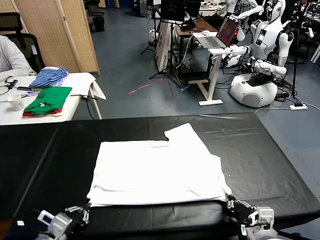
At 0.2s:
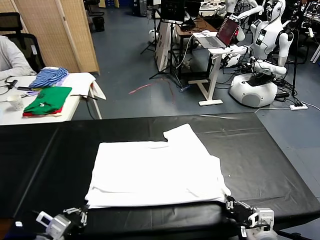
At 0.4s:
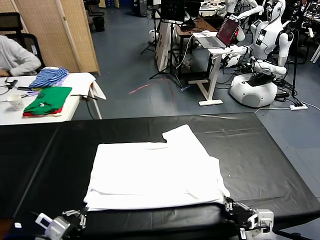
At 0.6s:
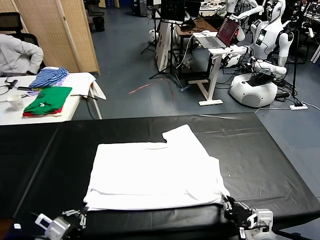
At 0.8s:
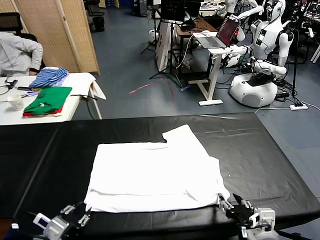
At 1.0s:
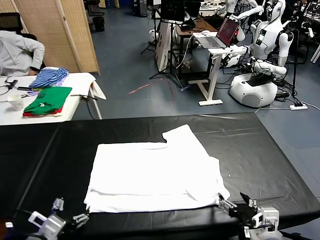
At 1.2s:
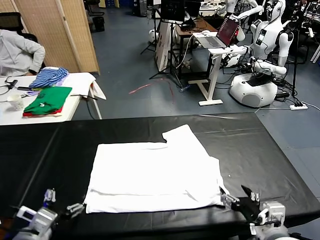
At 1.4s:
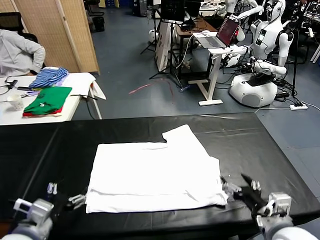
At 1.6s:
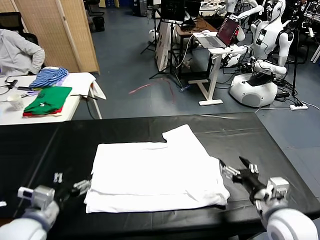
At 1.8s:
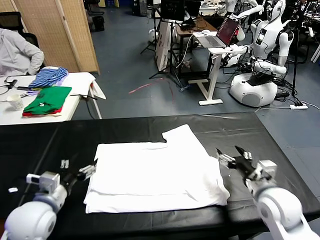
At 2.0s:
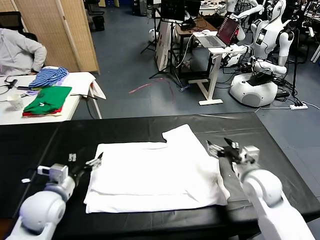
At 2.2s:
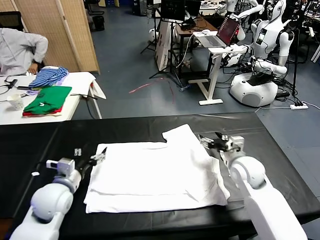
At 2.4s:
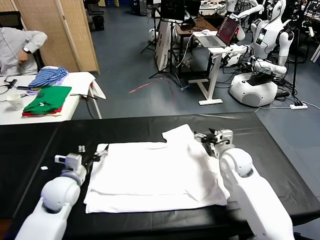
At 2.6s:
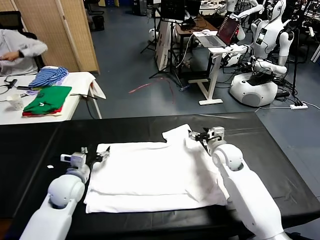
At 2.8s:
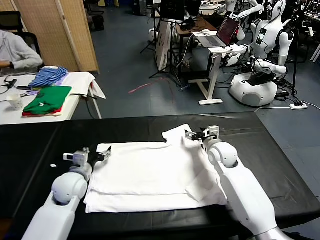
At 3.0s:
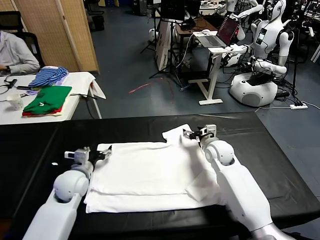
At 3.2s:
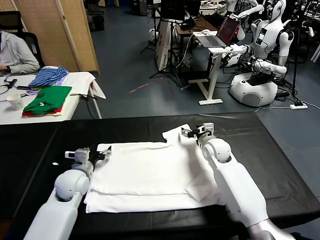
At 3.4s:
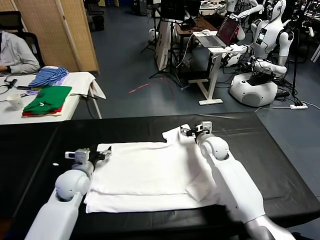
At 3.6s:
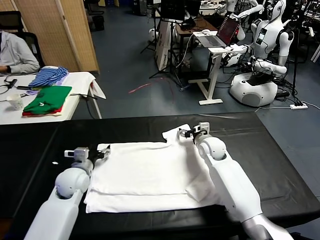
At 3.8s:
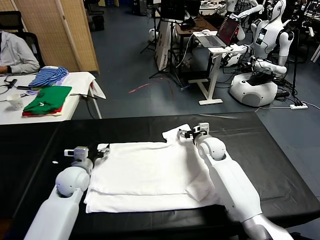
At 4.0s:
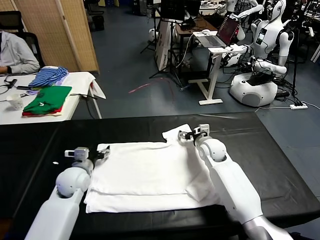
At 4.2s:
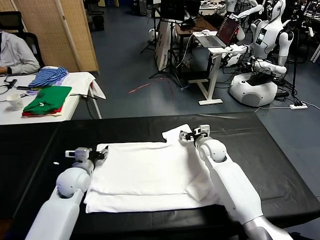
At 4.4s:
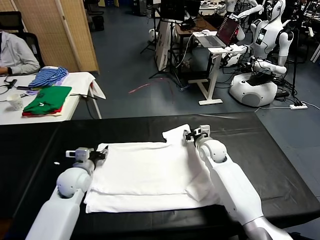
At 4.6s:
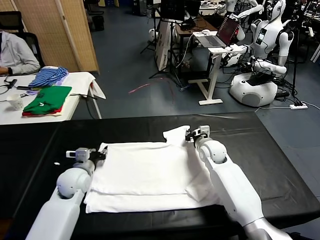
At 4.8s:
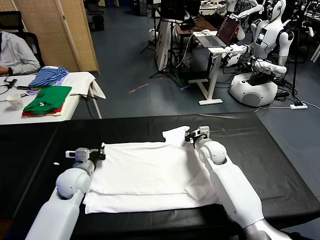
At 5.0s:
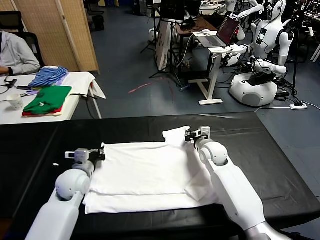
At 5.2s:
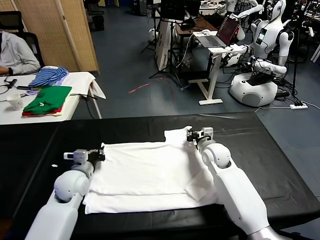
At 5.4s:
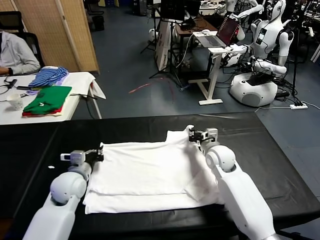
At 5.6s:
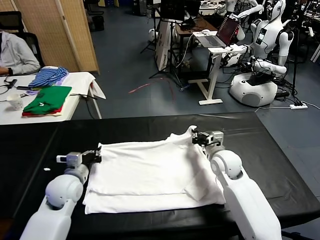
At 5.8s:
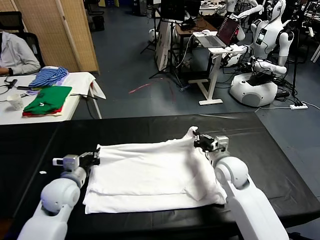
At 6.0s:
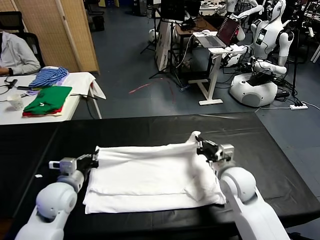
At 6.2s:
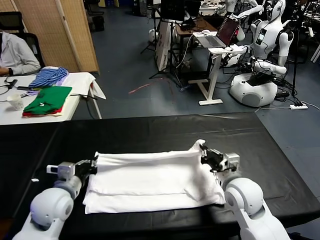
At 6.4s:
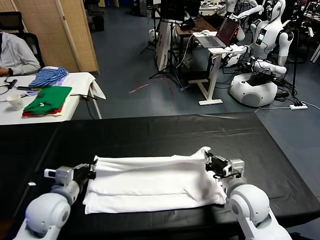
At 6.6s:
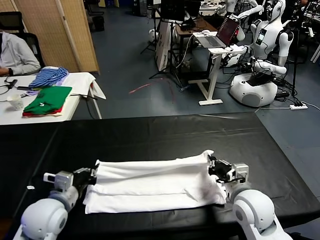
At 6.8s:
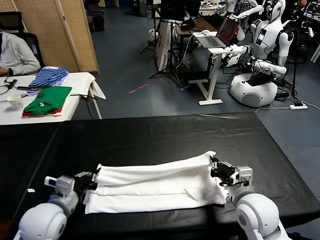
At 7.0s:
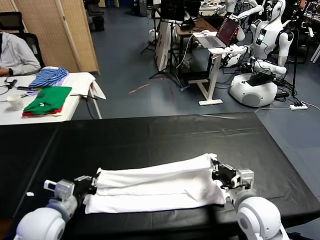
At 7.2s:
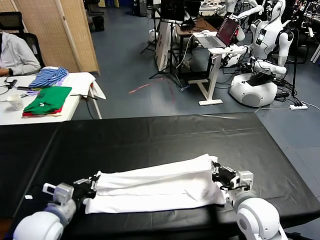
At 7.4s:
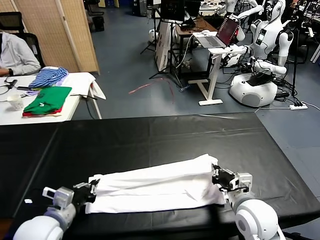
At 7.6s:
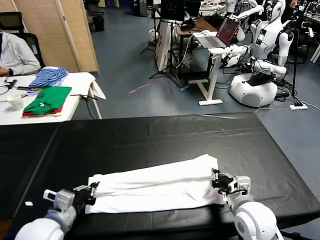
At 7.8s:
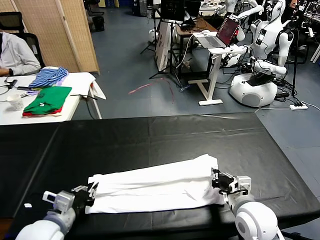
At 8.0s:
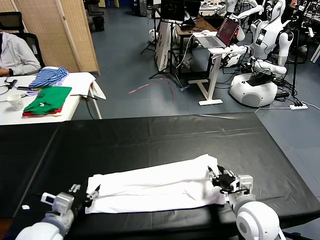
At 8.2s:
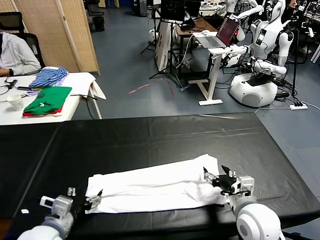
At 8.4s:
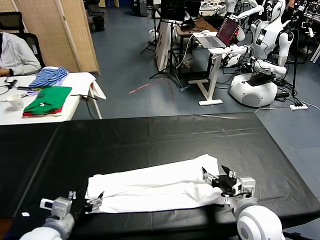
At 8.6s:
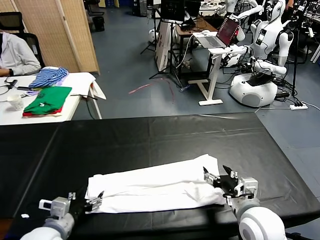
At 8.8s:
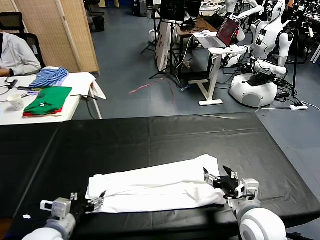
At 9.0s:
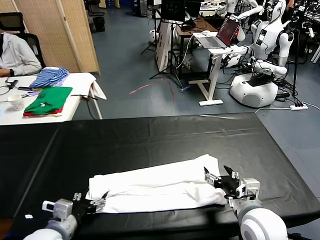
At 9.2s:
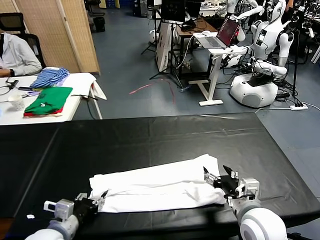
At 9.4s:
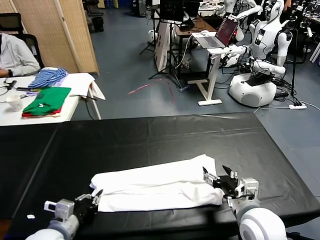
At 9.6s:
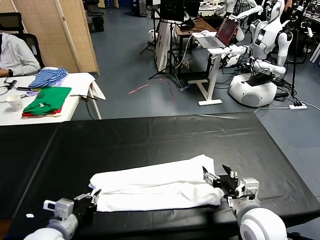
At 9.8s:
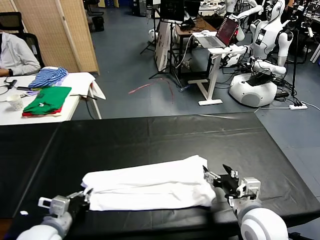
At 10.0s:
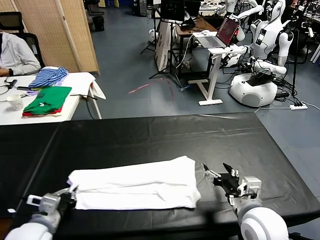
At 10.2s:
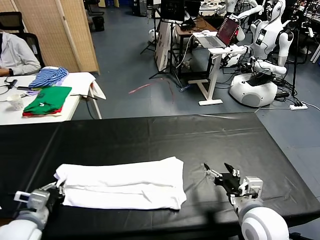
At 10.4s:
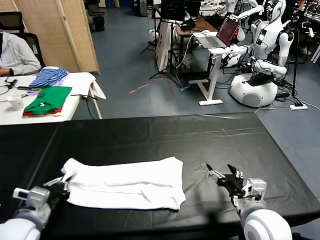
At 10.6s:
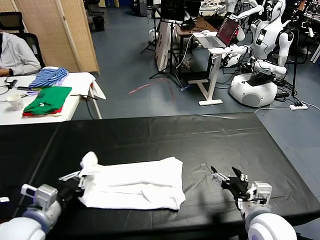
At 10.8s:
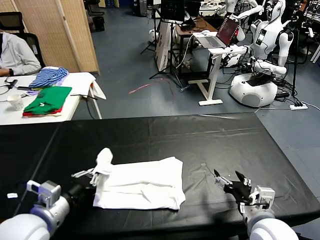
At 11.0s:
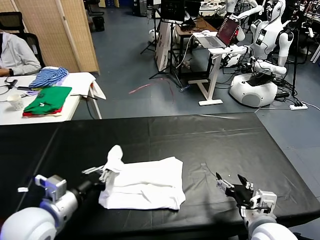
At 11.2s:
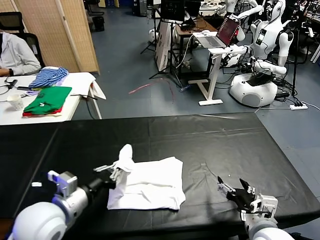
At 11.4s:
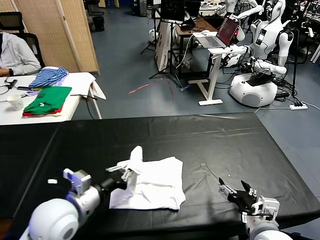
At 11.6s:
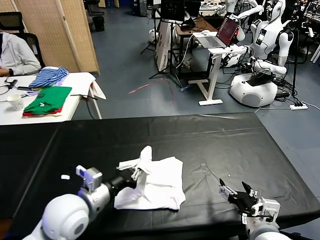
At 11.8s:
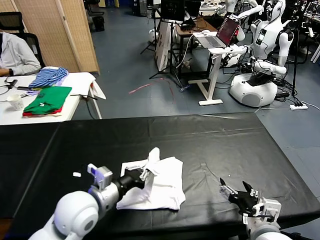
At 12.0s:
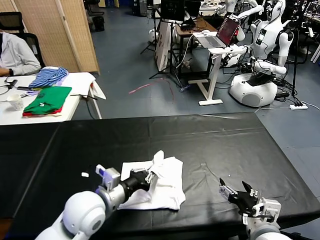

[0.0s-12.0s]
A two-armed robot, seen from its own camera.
Task of the whole recording: fold and organize the clothes.
Step, 1.0s to 4.6s: use both grippers simultaneously to clamp the upper edge of the clothing fabric.
Step, 4.8s to 8.2s: use both grippers to drag the upper edge of the fabric backward and fold it over the lower edge.
Step, 8.4s to 9.6s: use the left gripper to clamp the left edge of the fabric.
0.0s to 1.6s: The right gripper shifts about 10 cm forward, and opens; the left gripper travels forward by some 5 cm, and opens its fingers.
1.6s to 3.0s: The left gripper shifts some 20 cm forward and downward; the right gripper travels forward and to the left by roughly 25 cm.
3.0s to 4.4s: The right gripper closes its fingers; the left gripper closes.
4.4s to 6.0s: The right gripper travels backward by about 15 cm. The left gripper is displaced backward and upward by roughly 10 cm, and closes up.
6.0s to 7.6s: Both grippers move backward, approximately 10 cm.
7.6s to 9.0s: The right gripper opens; the left gripper opens up.
9.0s to 10.4s: The left gripper travels upward by roughly 5 cm, and closes.
10.4s to 12.0s: The left gripper moves to the right and forward, roughly 15 cm.

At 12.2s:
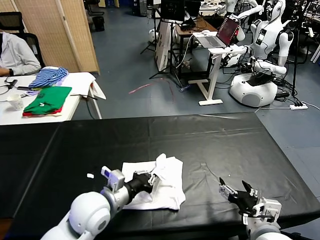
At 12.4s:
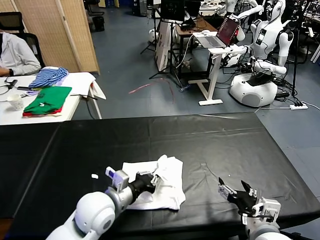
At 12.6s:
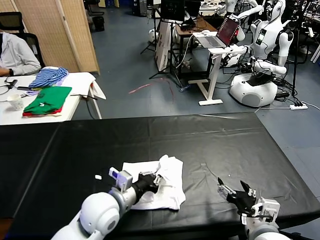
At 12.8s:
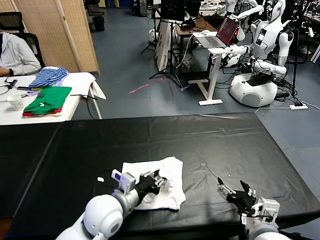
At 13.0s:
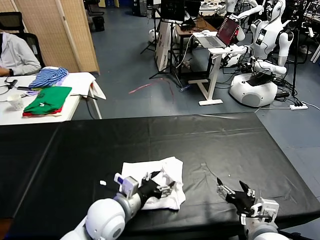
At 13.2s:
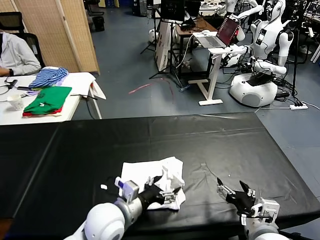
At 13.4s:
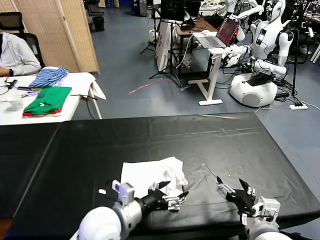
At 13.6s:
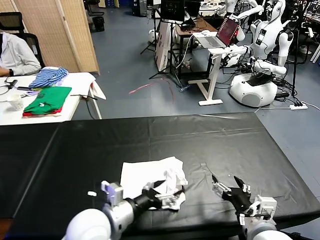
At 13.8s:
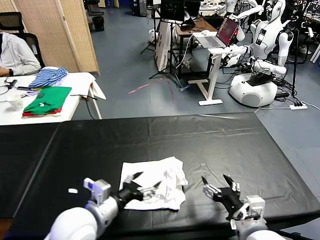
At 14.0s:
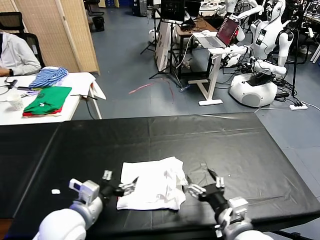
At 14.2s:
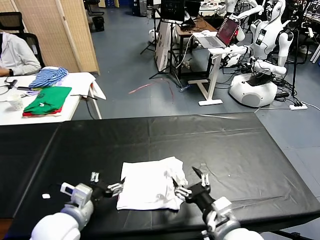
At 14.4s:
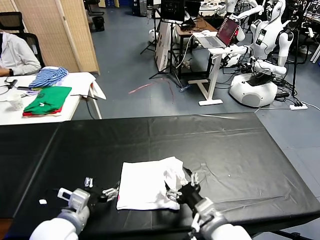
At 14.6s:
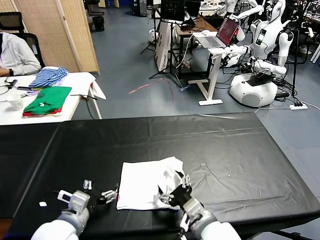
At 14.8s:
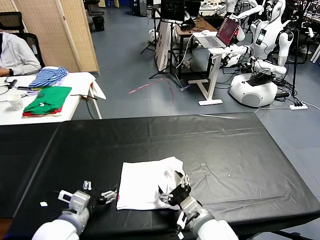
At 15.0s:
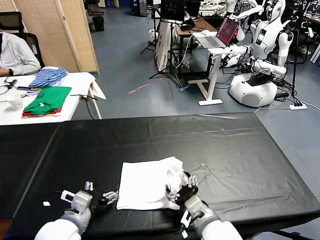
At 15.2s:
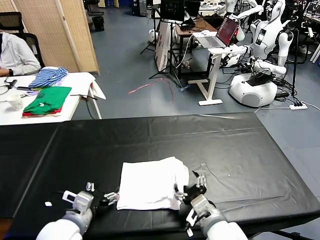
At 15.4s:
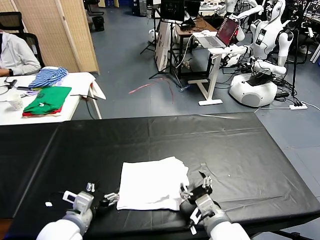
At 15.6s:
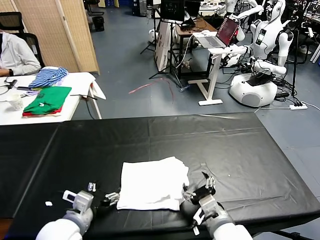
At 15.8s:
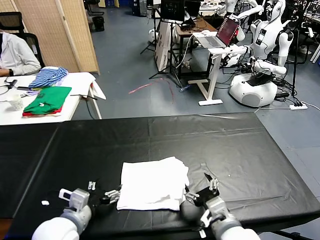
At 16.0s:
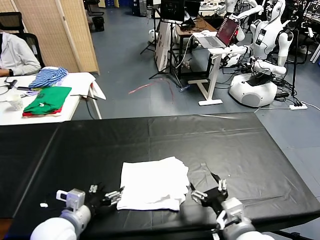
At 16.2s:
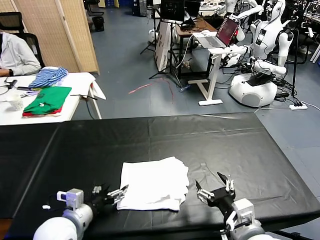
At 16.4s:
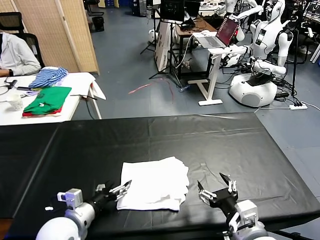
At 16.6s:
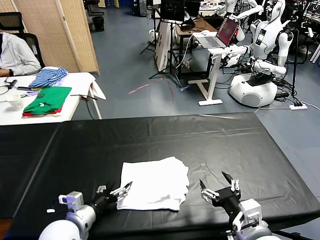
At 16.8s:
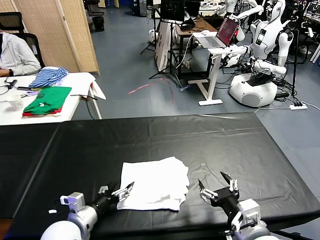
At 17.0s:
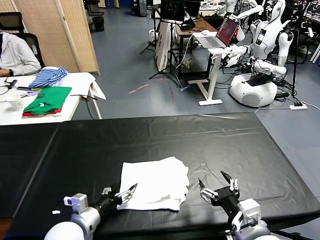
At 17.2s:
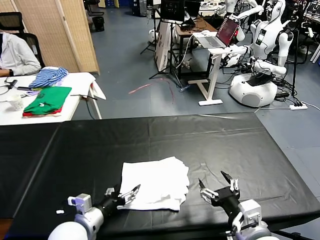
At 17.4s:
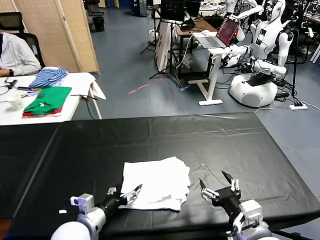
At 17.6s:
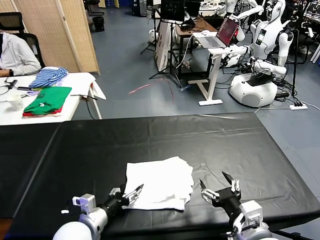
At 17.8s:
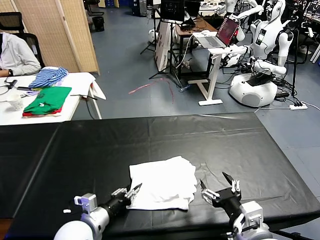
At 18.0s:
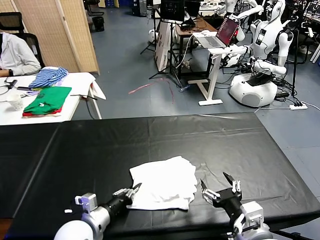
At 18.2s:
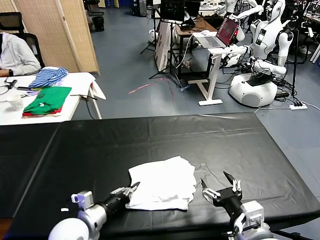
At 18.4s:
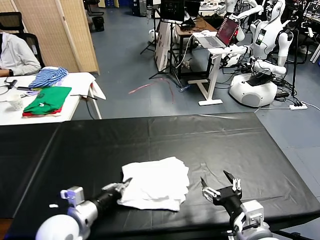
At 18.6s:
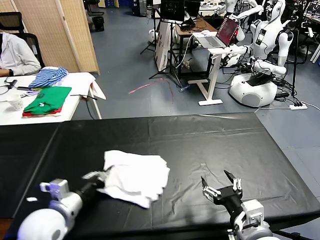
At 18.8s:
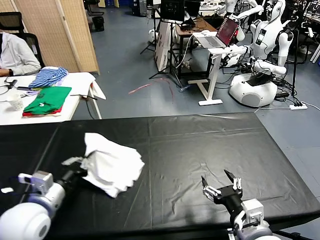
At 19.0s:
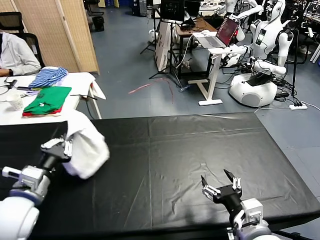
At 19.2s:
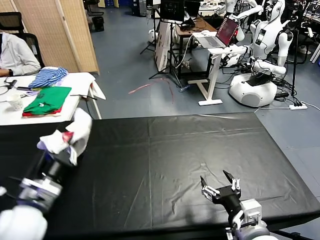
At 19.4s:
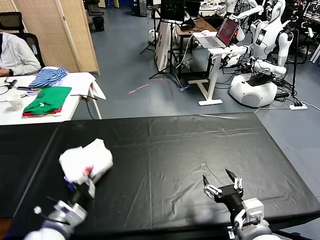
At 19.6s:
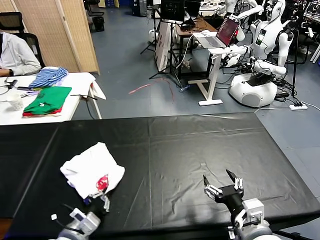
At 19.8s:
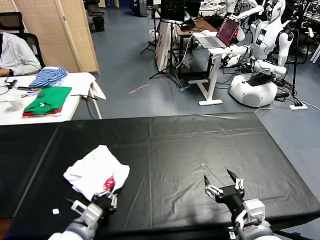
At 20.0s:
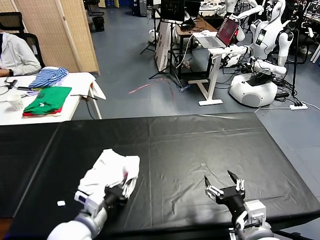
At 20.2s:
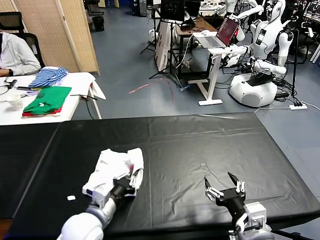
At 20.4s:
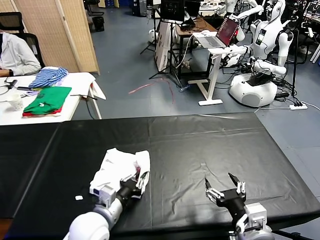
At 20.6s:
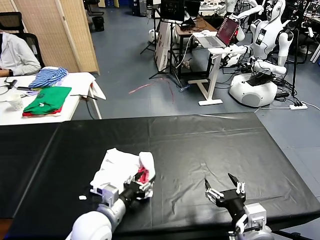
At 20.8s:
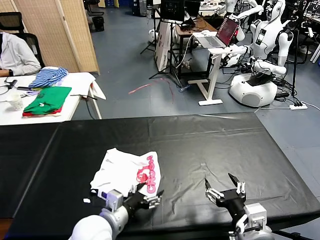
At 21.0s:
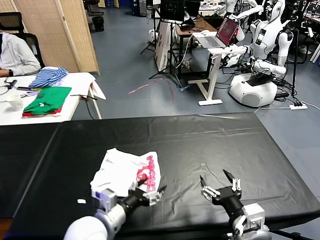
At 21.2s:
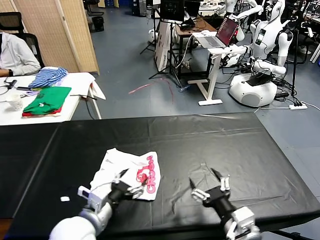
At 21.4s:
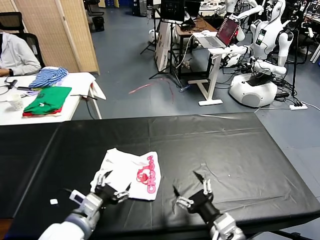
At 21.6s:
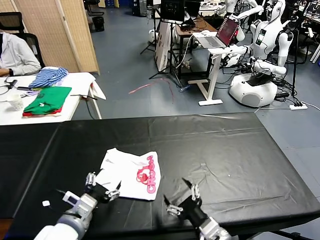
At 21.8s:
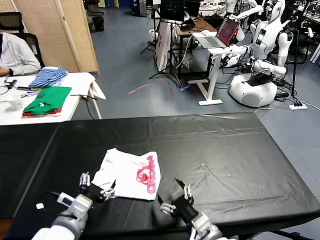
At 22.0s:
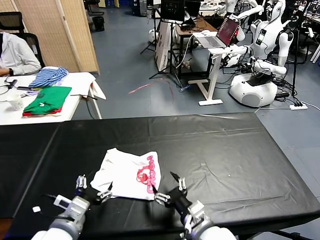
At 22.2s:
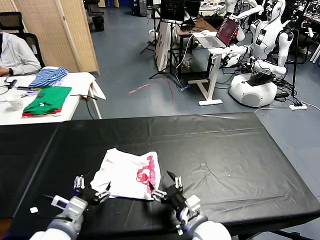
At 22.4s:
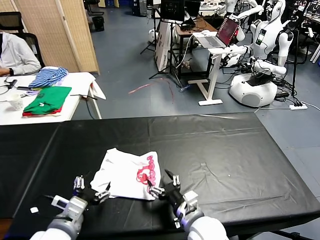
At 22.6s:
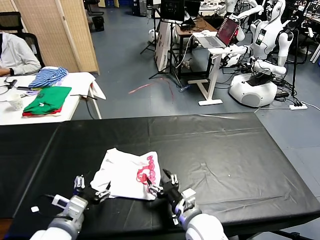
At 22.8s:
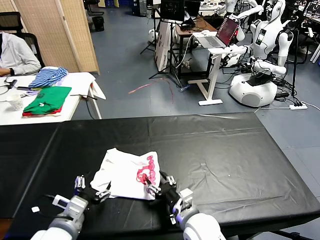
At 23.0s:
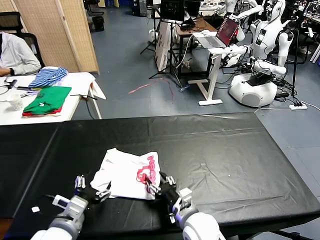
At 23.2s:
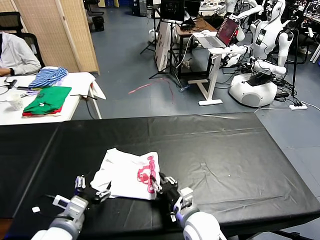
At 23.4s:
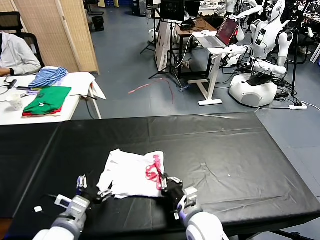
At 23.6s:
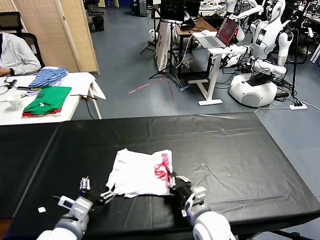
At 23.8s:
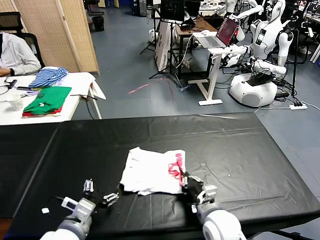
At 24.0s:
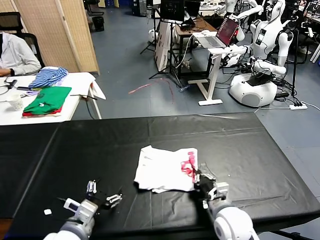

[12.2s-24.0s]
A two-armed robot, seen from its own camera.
Task of the whole recording: fold and organize the clothes.
Step, 13.2s to 20.6s: Flip the folded clothes over with left gripper.
12.2s to 13.6s: The left gripper opens its fingers.
13.6s to 15.2s: The two grippers go approximately 10 cm to the left.
15.2s to 16.6s: The right gripper moves upward and to the right, approximately 10 cm.
16.6s to 18.2s: The left gripper closes.
18.2s to 19.6s: The left gripper goes upward and returns, approximately 15 cm each way.
19.6s to 21.0s: The left gripper is displaced to the right by roughly 5 cm, and opens up.
21.0s to 22.6s: The left gripper is displaced to the left by about 5 cm. The right gripper shifts roughly 20 cm downward, to the left and forward.
22.6s to 24.0s: The right gripper heads to the right, covering some 10 cm, and closes its fingers.
